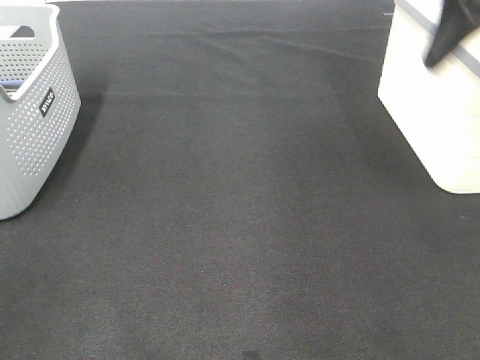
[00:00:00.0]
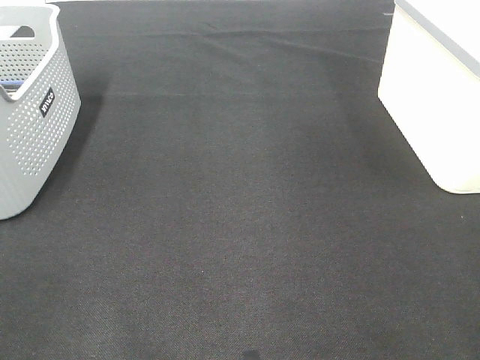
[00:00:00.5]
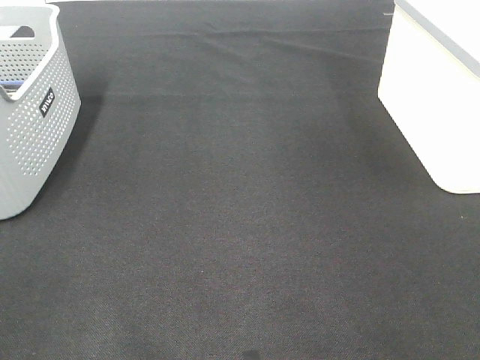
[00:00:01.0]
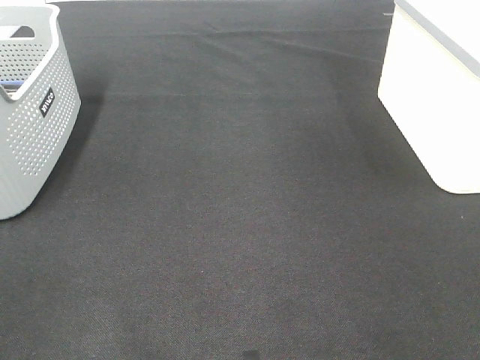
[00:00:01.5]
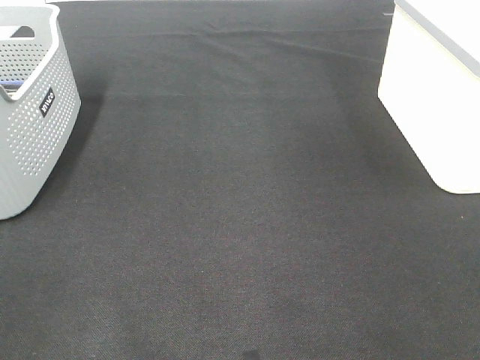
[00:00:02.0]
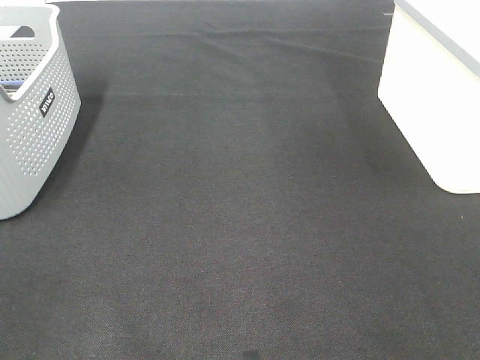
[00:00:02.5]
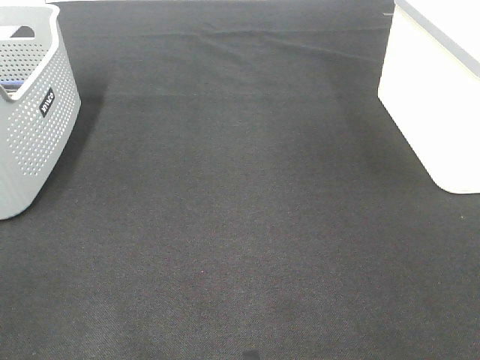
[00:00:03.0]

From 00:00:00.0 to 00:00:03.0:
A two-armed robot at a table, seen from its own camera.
From 00:00:00.0 to 00:00:01.5: The right gripper shifts about 25 cm backward.

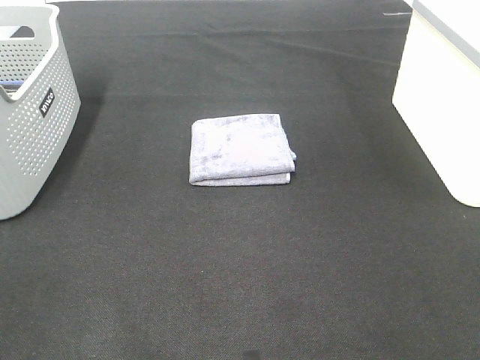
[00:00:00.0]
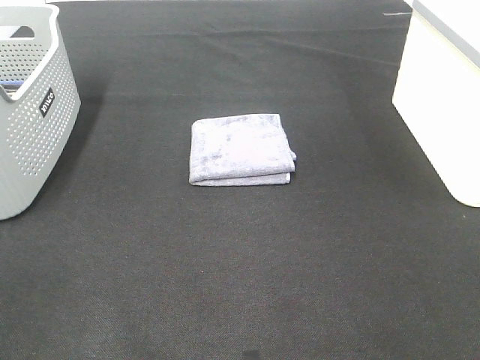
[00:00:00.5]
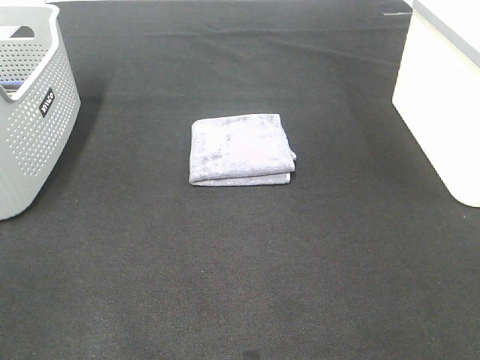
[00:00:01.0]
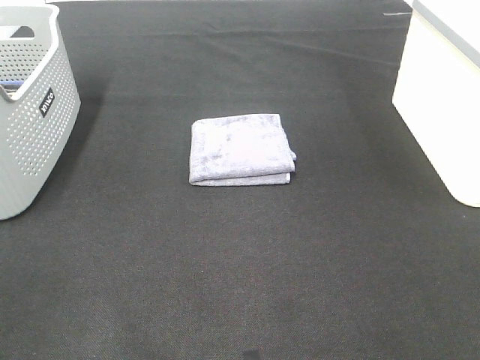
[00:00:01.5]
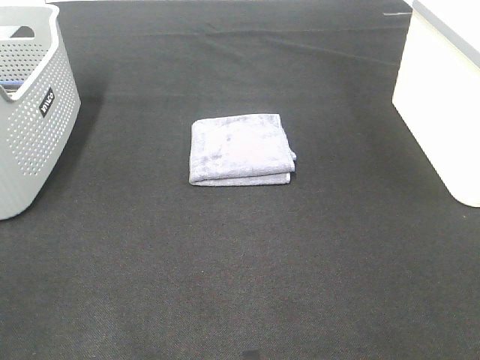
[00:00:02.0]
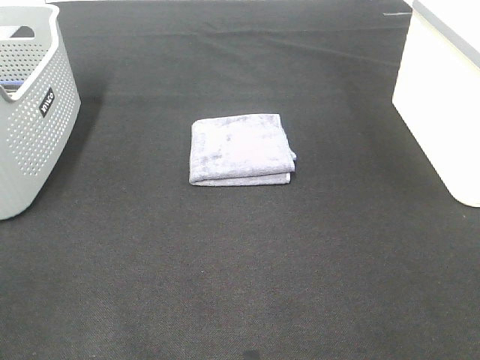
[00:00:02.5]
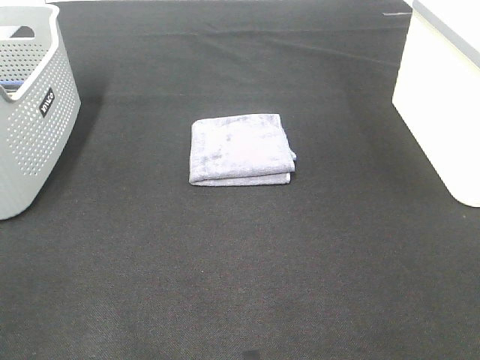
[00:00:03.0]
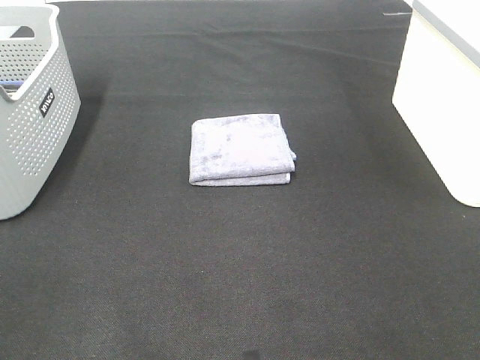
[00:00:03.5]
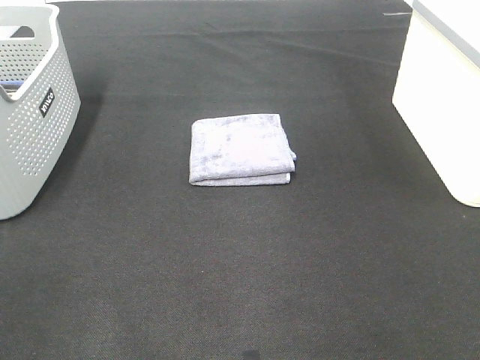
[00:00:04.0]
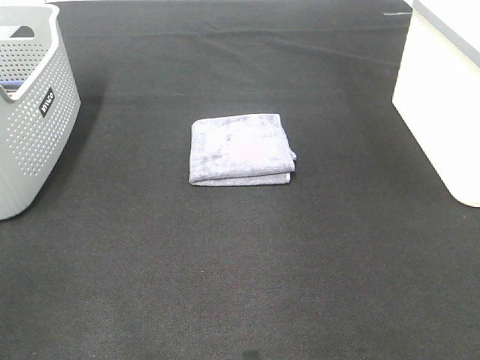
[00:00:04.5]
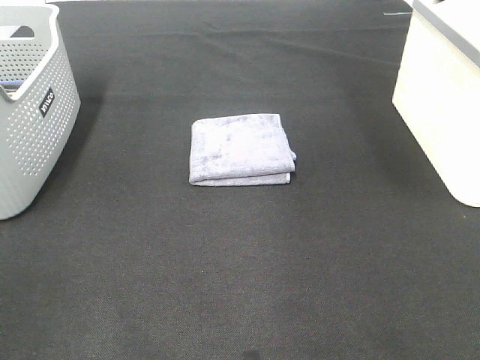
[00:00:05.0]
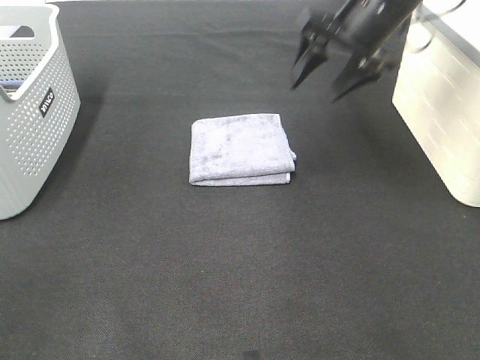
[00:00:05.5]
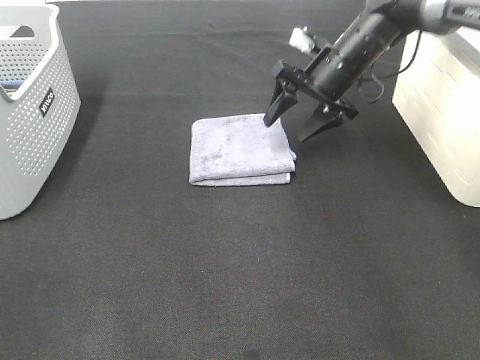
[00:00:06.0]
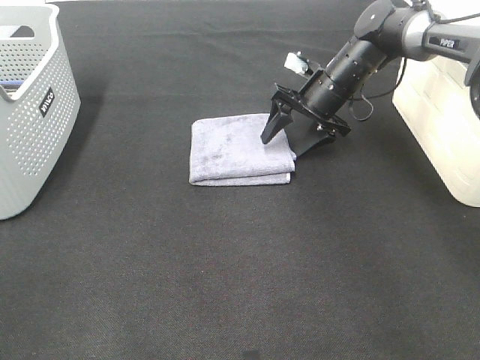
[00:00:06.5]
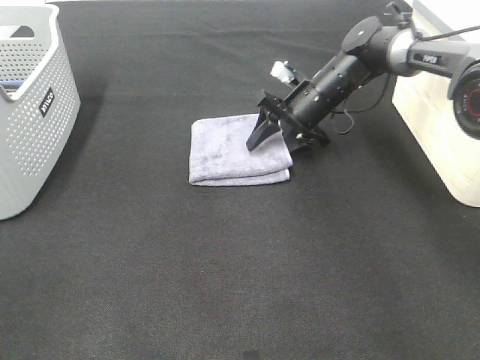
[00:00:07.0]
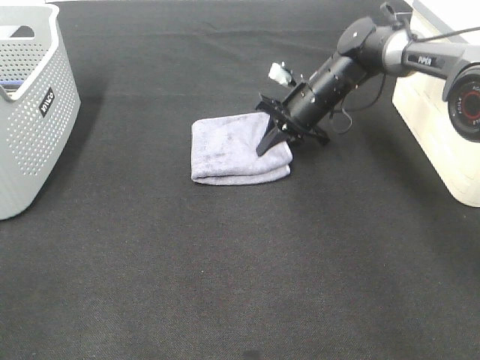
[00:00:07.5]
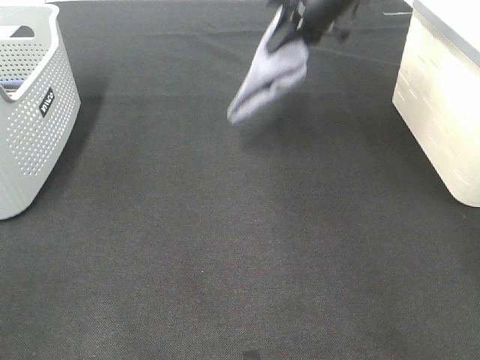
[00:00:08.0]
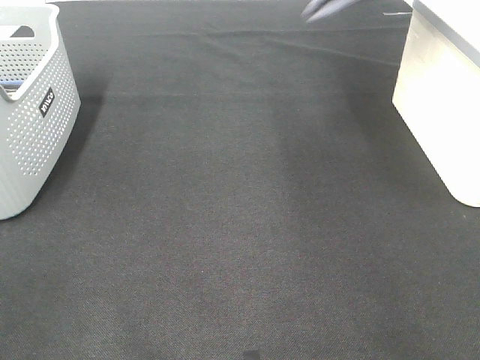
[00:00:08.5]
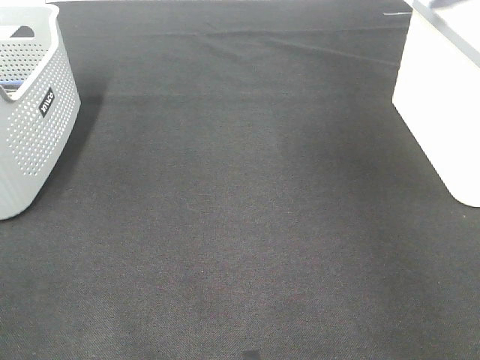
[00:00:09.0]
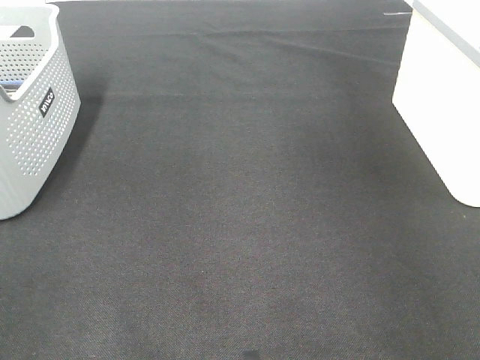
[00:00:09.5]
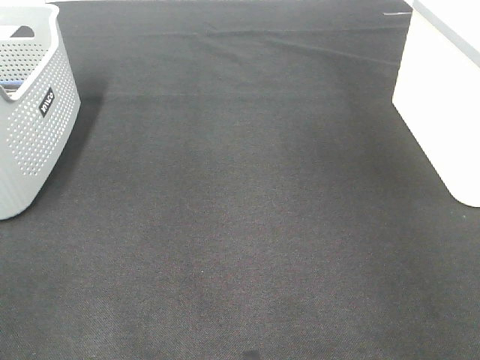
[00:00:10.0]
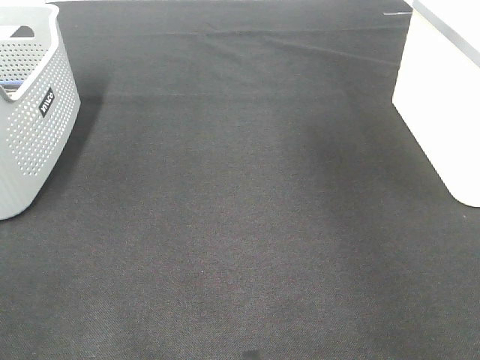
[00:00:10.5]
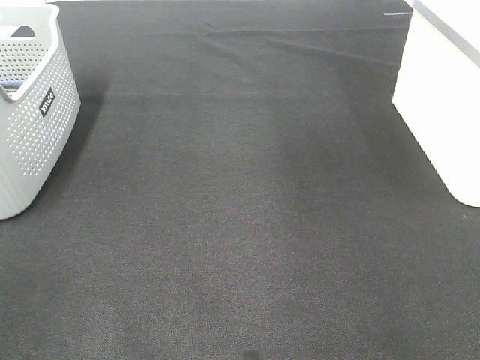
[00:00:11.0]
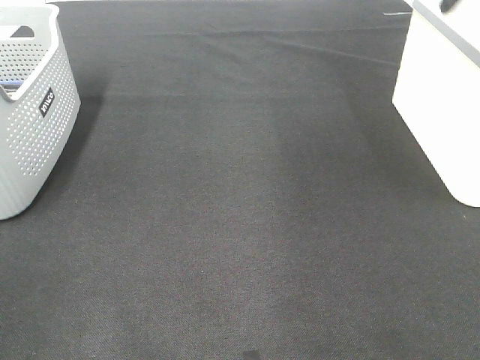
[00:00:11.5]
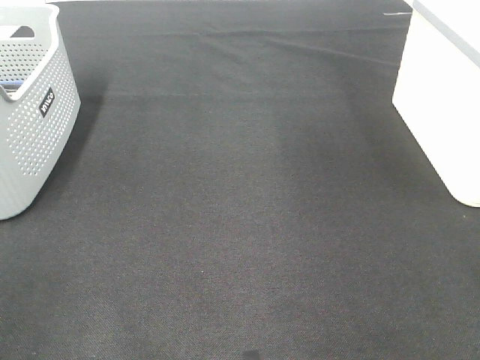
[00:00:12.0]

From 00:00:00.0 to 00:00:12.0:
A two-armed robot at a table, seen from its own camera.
Step, from 00:00:00.0 to 00:00:07.0: Right hand: grab the folded grey towel.
Step, from 00:00:07.5 to 00:00:10.0: Right hand: place the grey towel in right basket.
From 00:00:00.0 to 00:00:02.0: Neither gripper changes place.
From 00:00:04.0 to 00:00:06.0: The right gripper travels forward and downward by roughly 40 cm.
From 00:00:06.0 to 00:00:08.0: The right gripper goes some 15 cm upward, and closes its fingers.
From 00:00:08.0 to 00:00:10.0: The right gripper heads to the right, covering roughly 30 cm, and opens up.

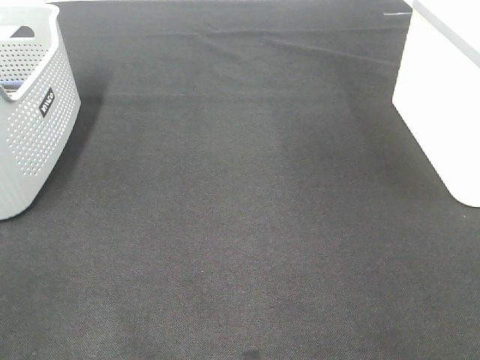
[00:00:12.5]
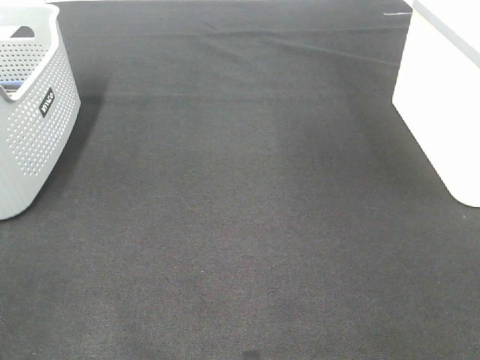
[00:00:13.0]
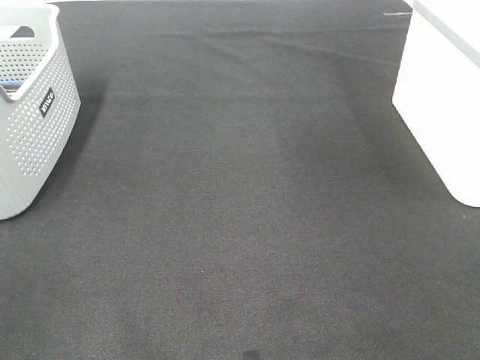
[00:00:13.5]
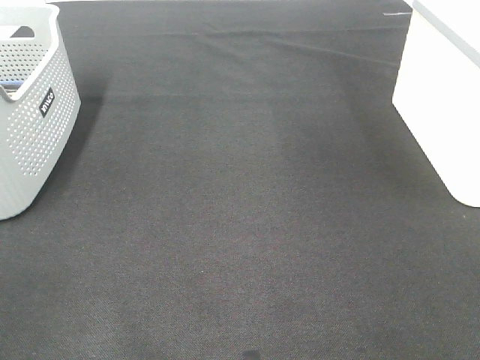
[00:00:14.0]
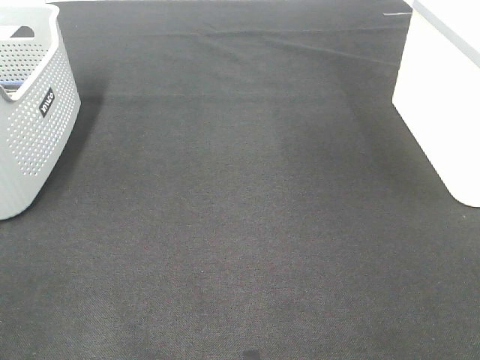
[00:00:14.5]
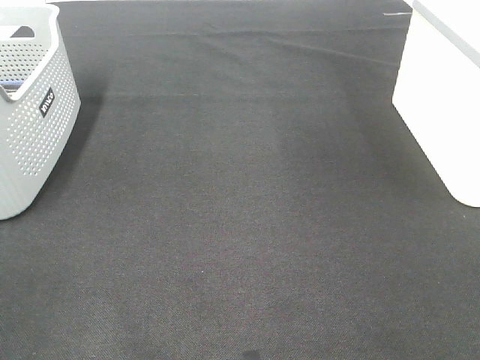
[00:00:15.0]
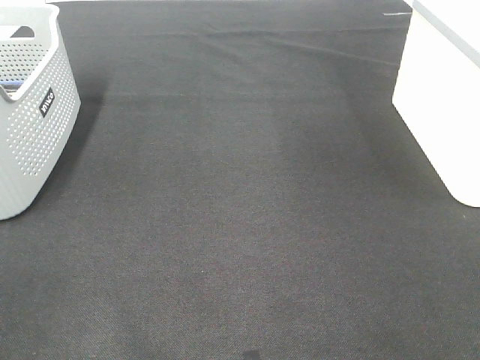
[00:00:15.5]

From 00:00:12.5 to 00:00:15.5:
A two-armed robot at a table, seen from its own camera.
From 00:00:14.0 to 00:00:15.5: The two grippers keep their place.

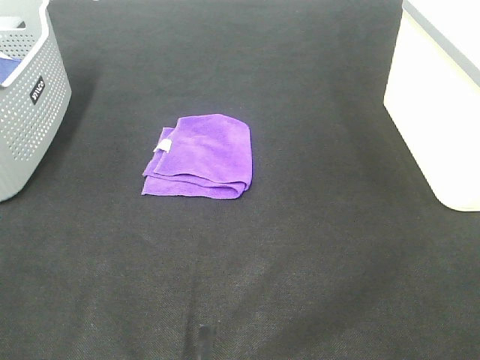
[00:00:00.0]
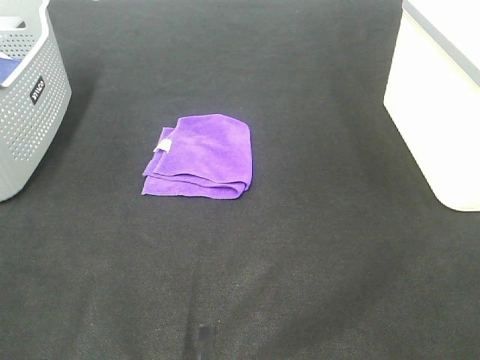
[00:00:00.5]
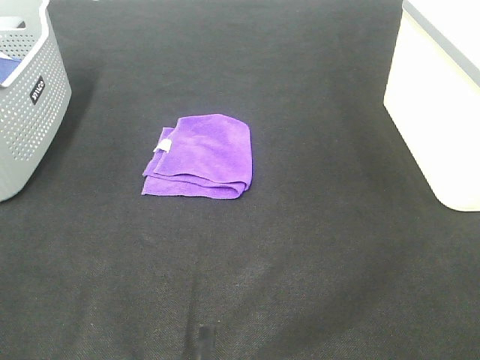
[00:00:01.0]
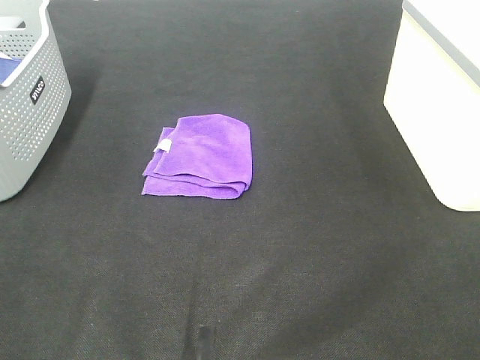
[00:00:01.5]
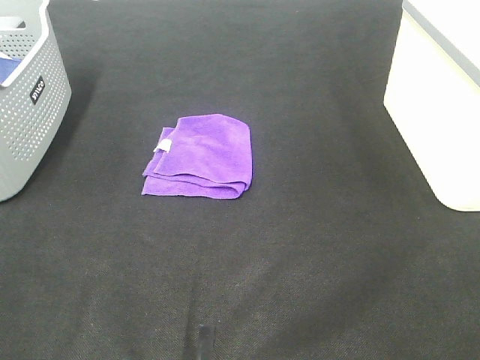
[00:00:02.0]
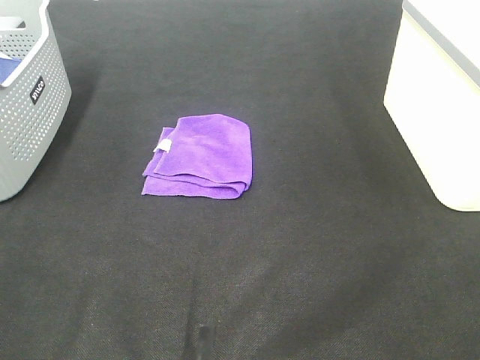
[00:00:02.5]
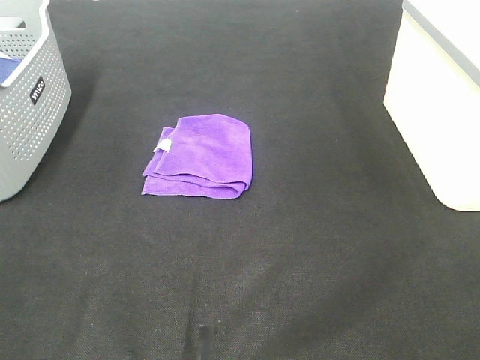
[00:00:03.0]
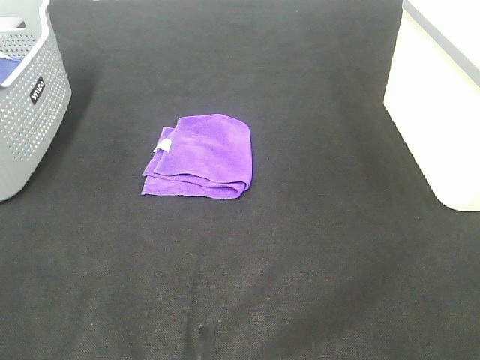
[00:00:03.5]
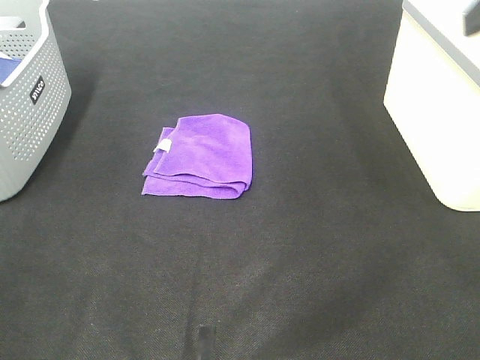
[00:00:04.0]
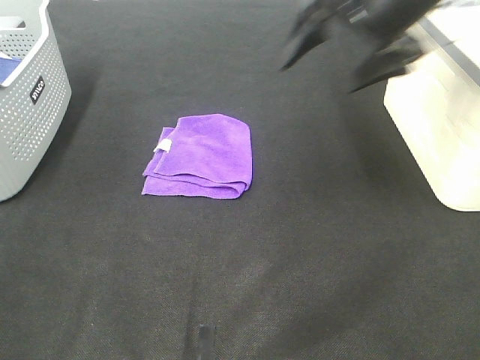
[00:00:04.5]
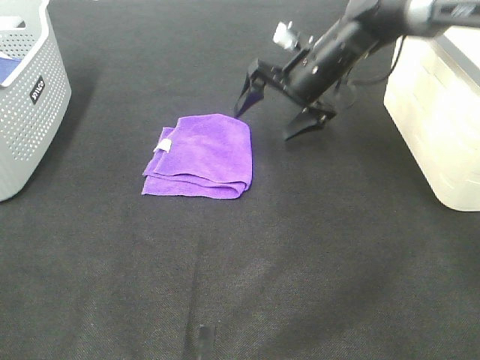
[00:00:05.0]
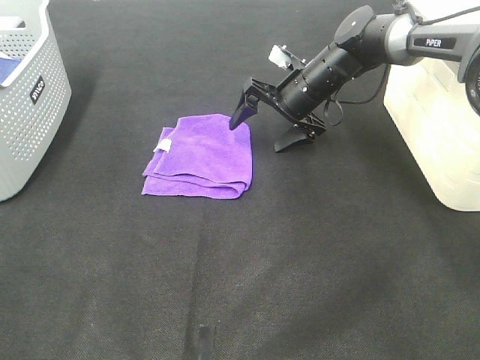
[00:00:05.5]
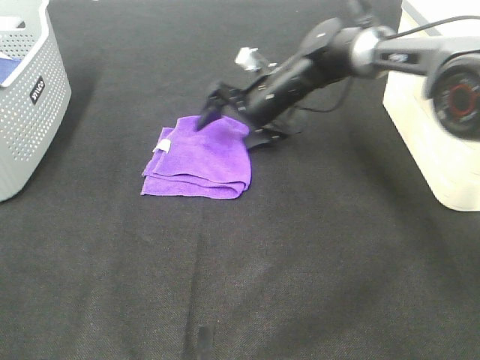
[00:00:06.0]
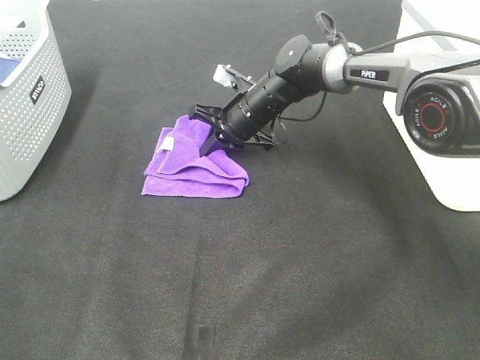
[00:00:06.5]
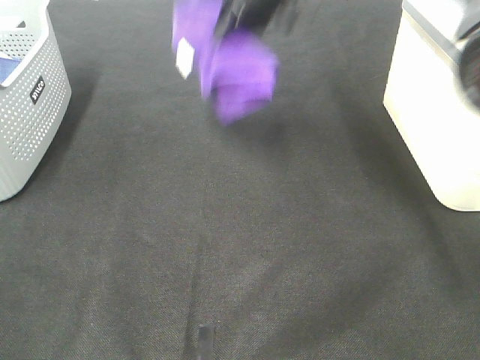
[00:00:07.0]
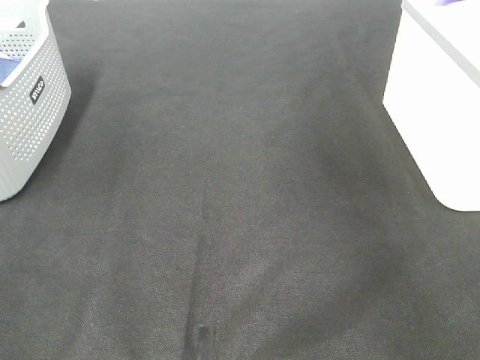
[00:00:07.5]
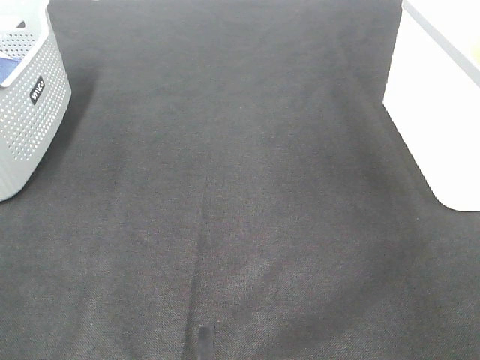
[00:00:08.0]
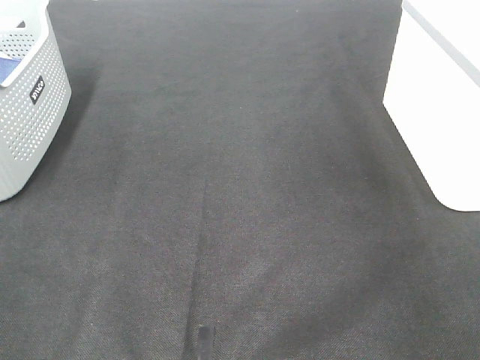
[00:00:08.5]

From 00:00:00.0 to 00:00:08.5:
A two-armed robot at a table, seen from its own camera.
Step, from 00:00:00.0 to 00:00:06.0: Right hand: grab the folded purple towel.
Step, from 00:00:06.5 to 00:00:08.0: Right hand: place the purple towel in right basket.
From 00:00:04.0 to 00:00:06.5: The right gripper moves downward, forward and to the left, some 50 cm, and closes.
From 00:00:06.5 to 00:00:08.5: The right gripper travels to the right and upward by roughly 50 cm, and opens up.
